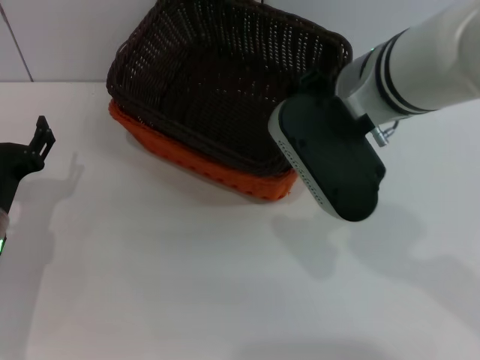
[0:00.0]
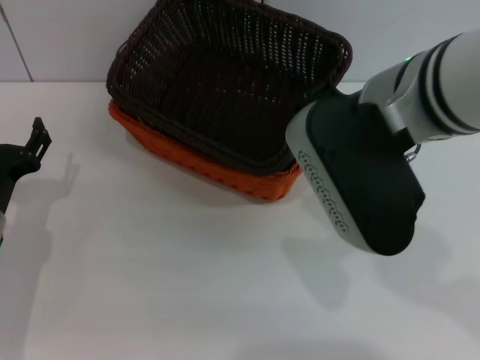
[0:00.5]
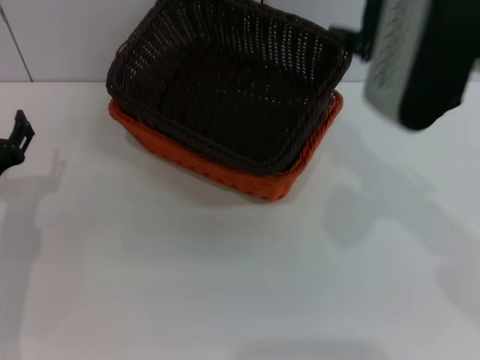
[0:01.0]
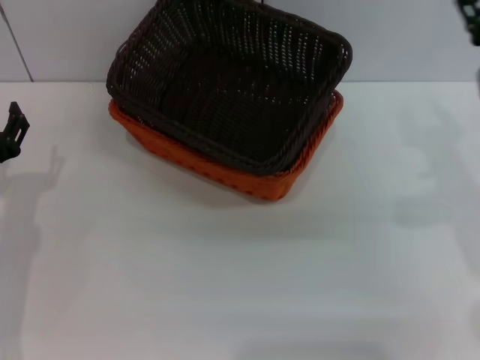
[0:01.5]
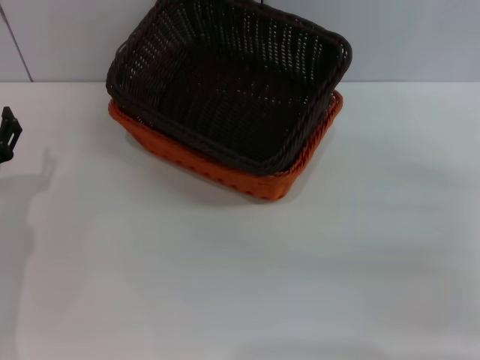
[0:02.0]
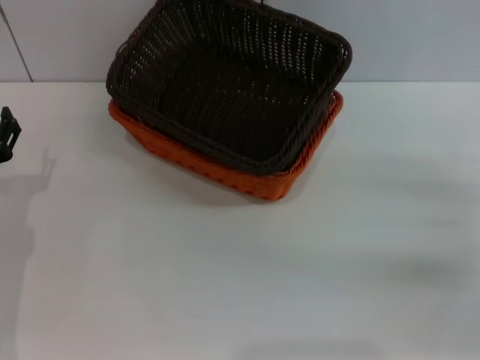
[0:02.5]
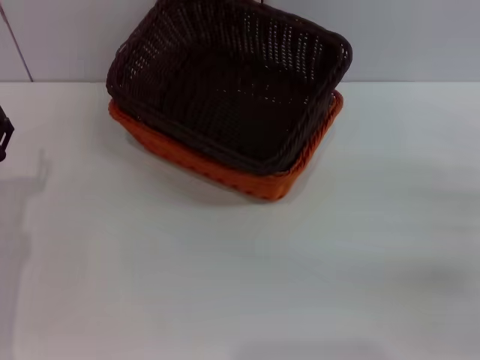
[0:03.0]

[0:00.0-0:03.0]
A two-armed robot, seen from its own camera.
0:00.0 to 0:01.5: The right gripper shifts some 15 cm to the right.
0:01.5 to 0:03.0: The right gripper goes approximately 15 cm downward and to the right.
